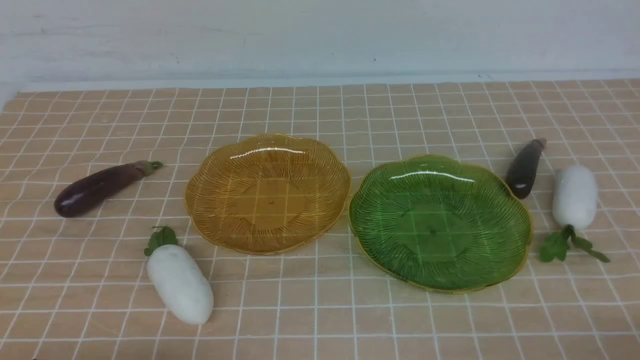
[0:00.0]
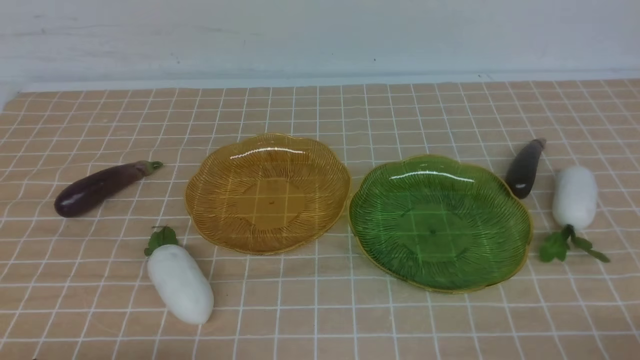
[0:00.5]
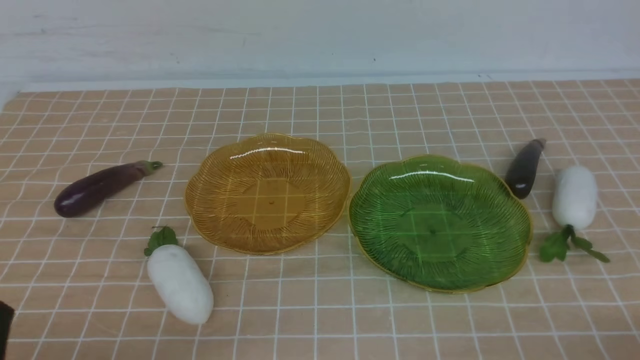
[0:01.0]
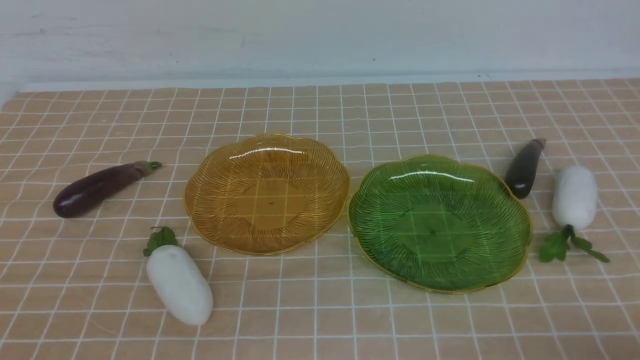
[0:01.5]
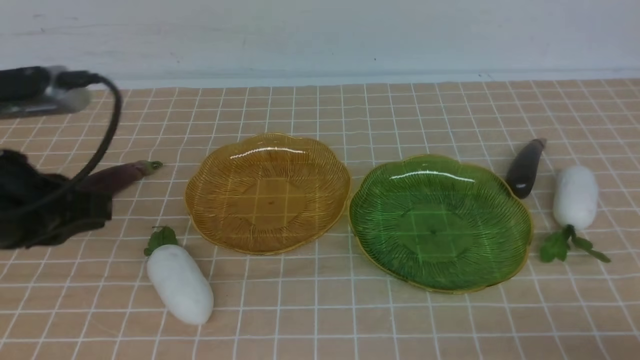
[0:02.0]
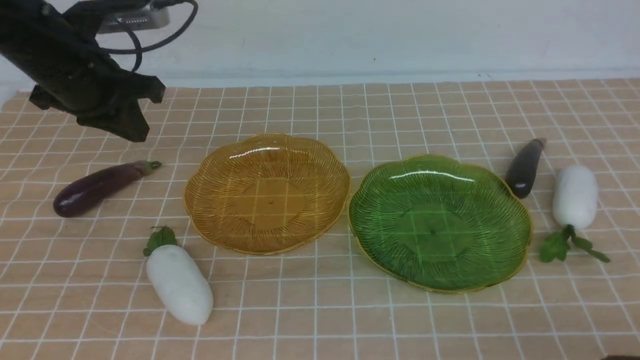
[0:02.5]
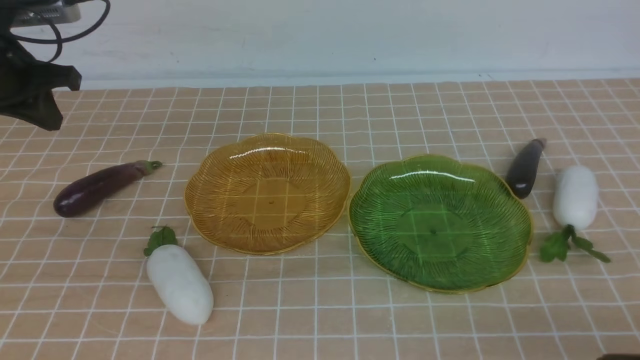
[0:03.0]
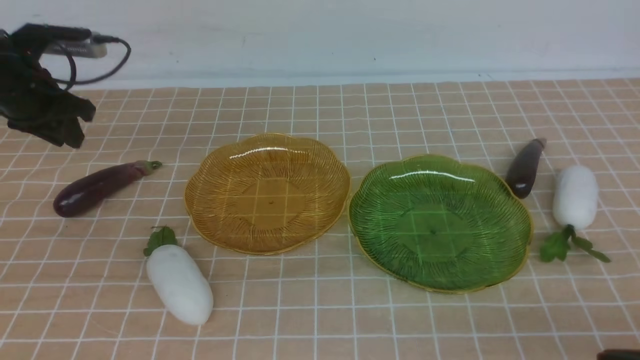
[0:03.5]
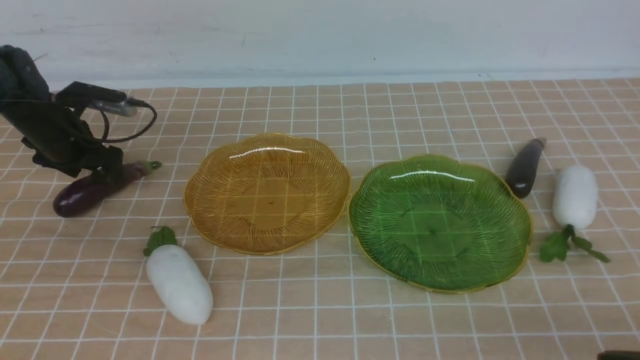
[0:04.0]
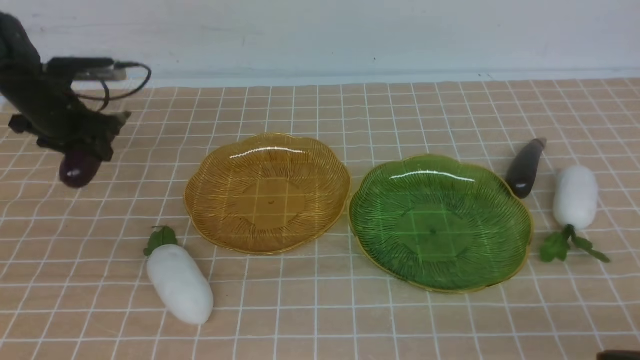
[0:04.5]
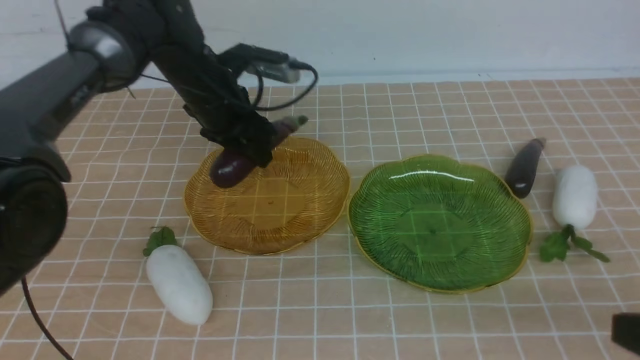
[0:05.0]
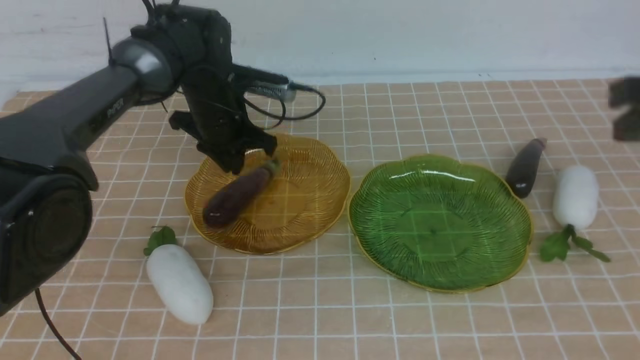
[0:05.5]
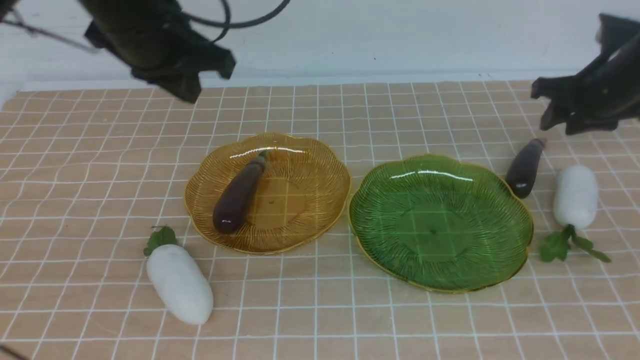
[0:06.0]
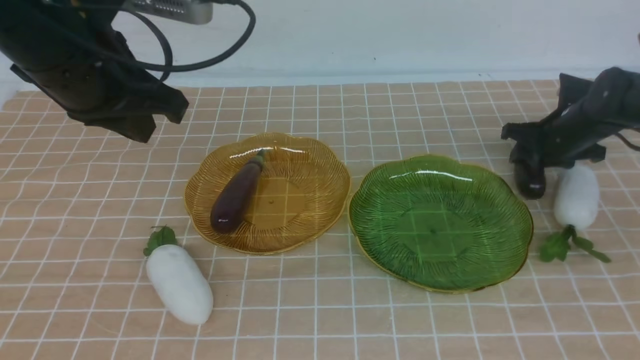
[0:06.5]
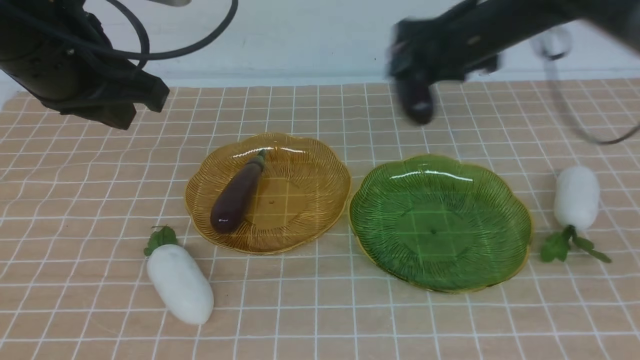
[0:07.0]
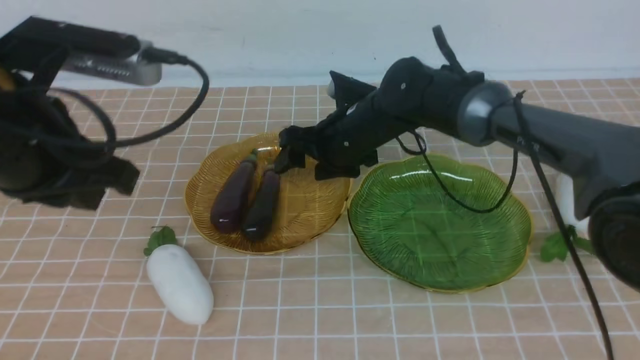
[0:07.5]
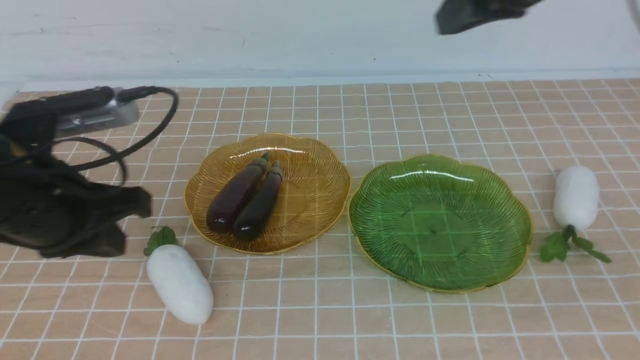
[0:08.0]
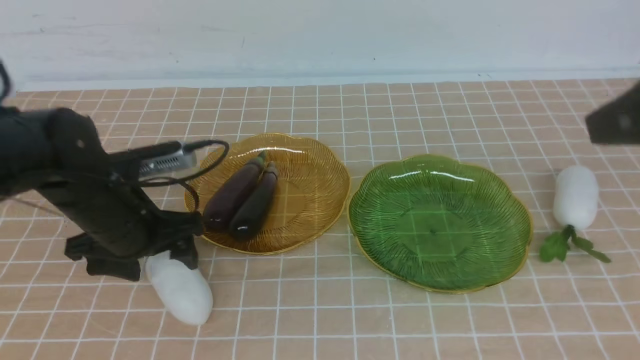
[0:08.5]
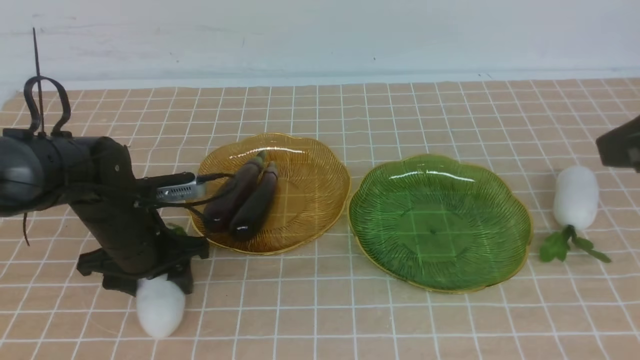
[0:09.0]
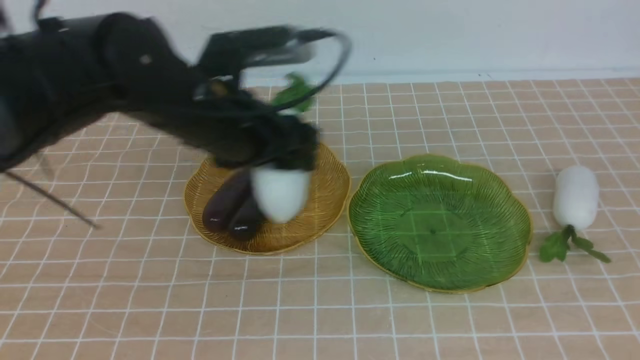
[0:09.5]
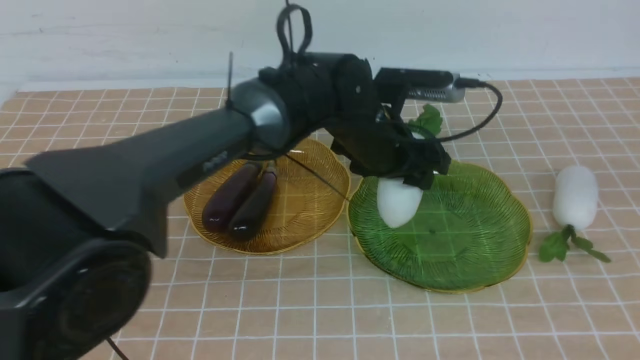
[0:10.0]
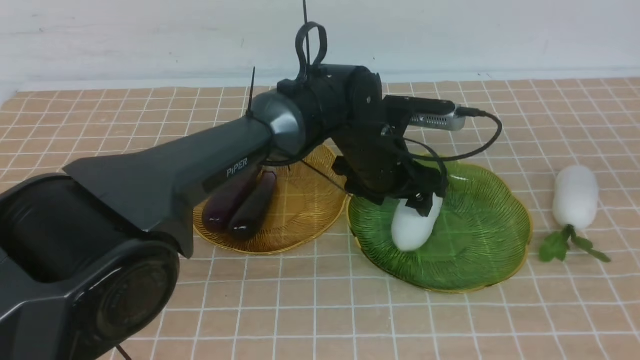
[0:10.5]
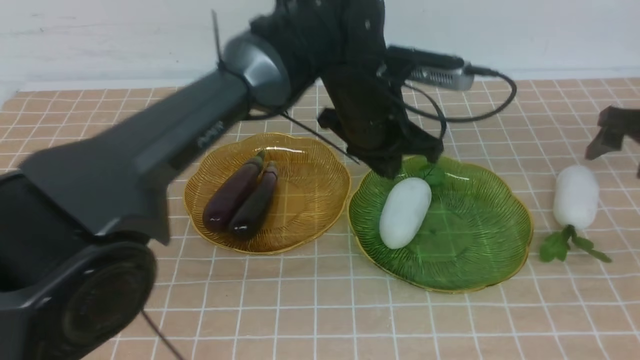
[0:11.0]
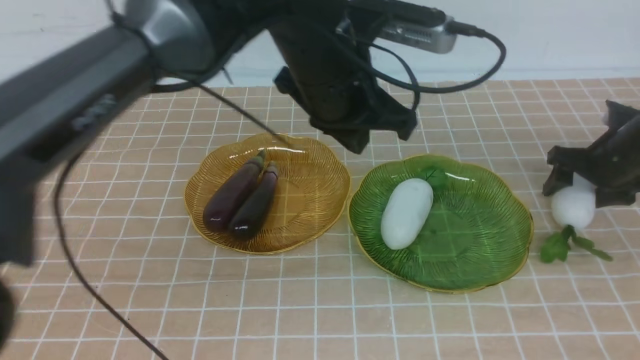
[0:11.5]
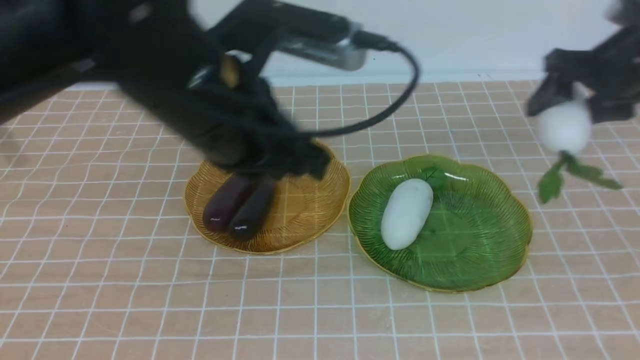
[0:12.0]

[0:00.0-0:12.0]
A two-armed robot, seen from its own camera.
Step, 0:00.0 to 0:05.5: use the left arm to grab an eggplant and put it into the left plate.
Step, 0:06.0 to 0:07.0: use the right arm to grab an eggplant and put it into the left plate.
Step, 0:07.5 to 0:10.0: use the left arm to grab a radish and put it into the right plate.
0:00.0 to 0:02.0: The left gripper is displaced forward and upward by about 35 cm.
0:02.0 to 0:04.0: The left gripper moves forward and downward, roughly 20 cm, and opens its fingers.
0:04.0 to 0:06.0: The left gripper moves backward and upward, about 25 cm, and closes up. The right gripper is displaced forward by roughly 40 cm, and opens.
0:06.0 to 0:08.0: The left gripper shifts some 25 cm downward, and opens its fingers, while the right gripper moves backward and upward, roughly 35 cm, and closes up.
0:08.0 to 0:10.0: The right gripper travels forward, downward and to the right by about 30 cm, and opens. Meanwhile the left gripper goes approximately 25 cm to the right, and closes.
0:10.0 to 0:12.0: The left gripper moves backward, to the left and upward, approximately 30 cm, and closes its fingers. Meanwhile the right gripper shifts roughly 15 cm to the left.

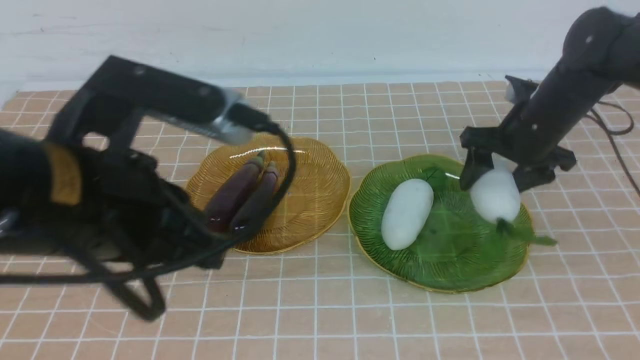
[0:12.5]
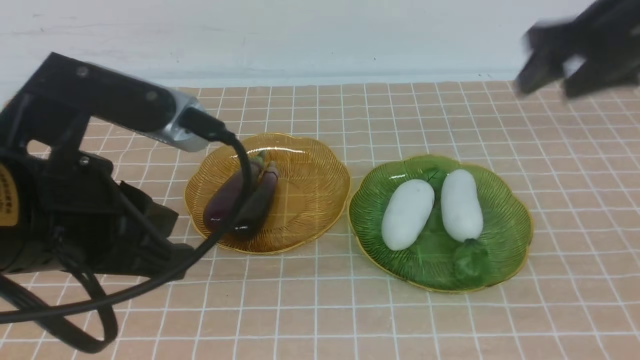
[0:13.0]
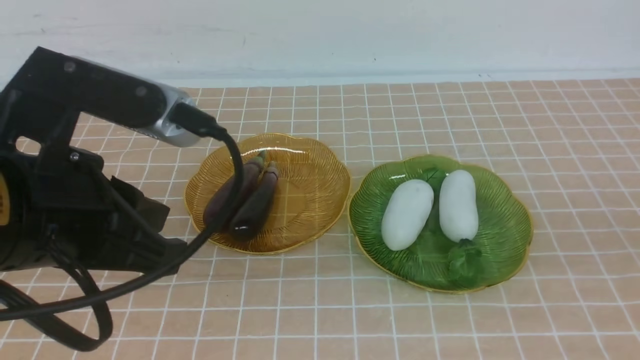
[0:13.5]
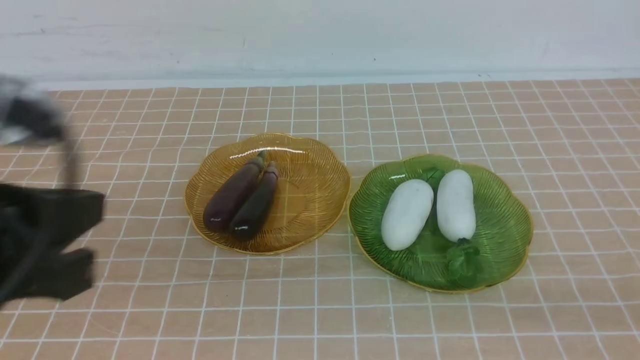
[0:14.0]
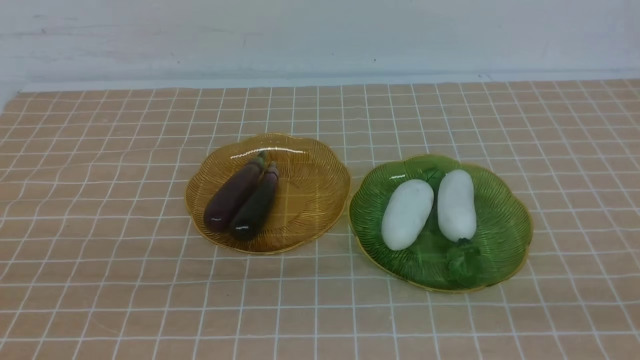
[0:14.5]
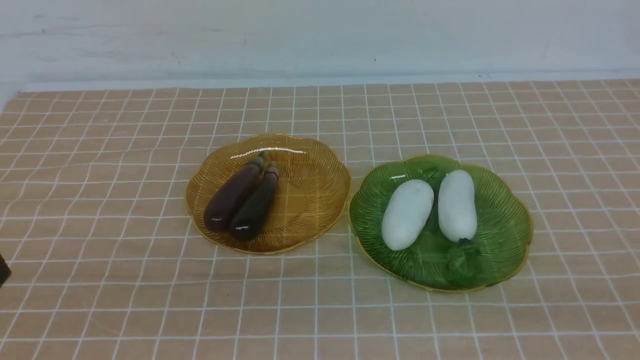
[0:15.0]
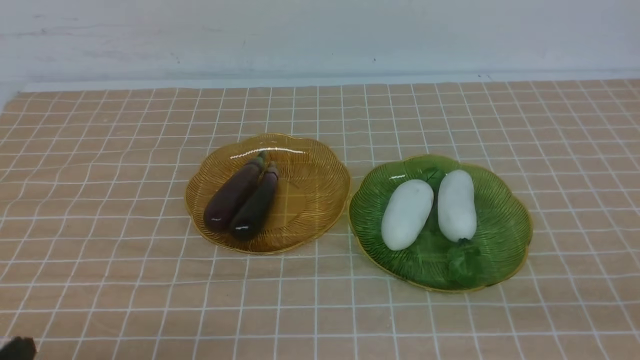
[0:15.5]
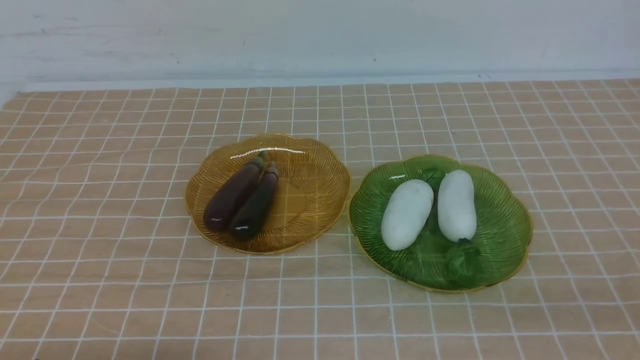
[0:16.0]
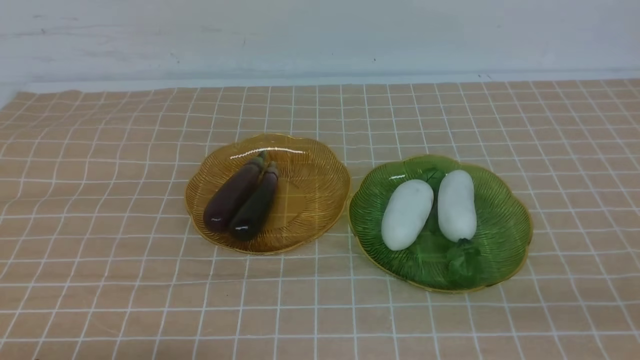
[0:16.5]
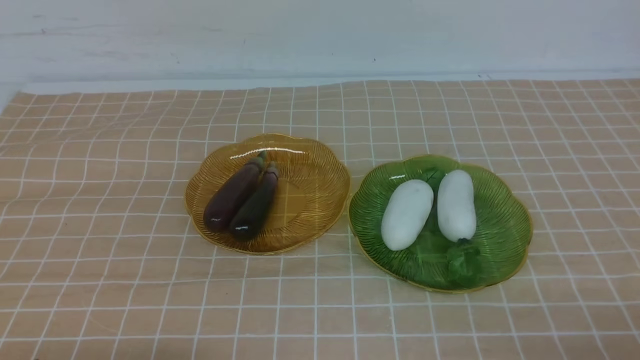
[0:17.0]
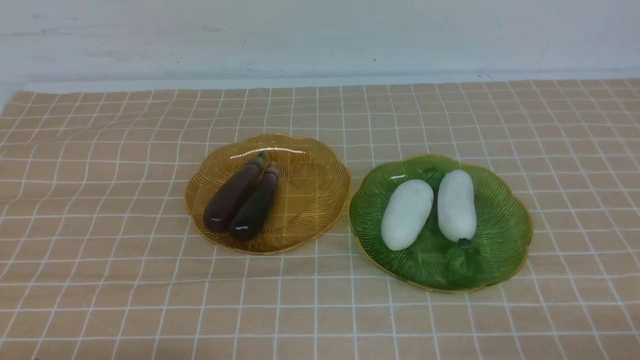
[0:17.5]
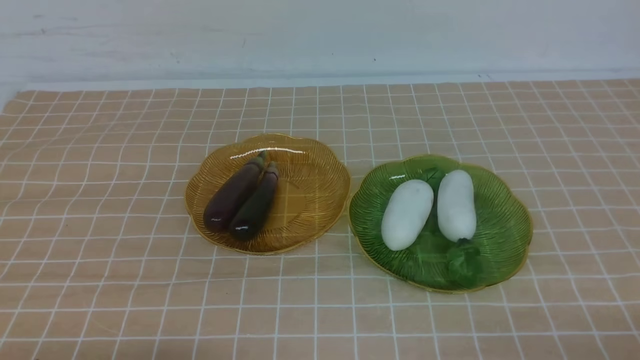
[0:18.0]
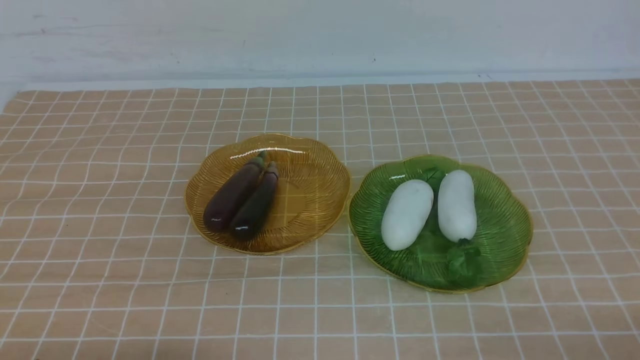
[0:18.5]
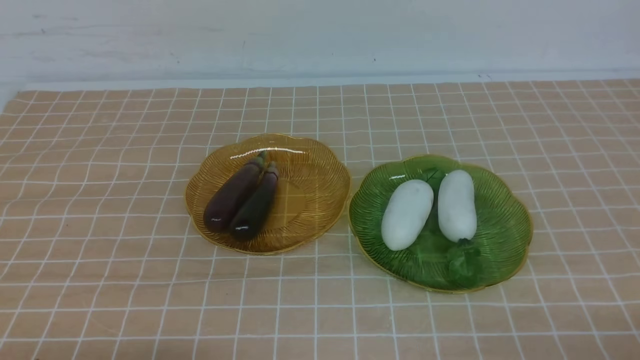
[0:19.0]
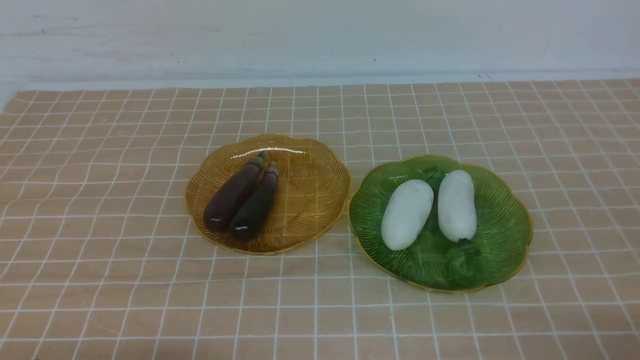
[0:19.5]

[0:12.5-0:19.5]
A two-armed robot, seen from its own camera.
0:12.5 to 0:14.5: The right gripper is displaced backward and downward by approximately 30 cm, and closes; the left gripper heads backward and to the left, covering about 15 cm.
0:17.5 to 0:19.5: The two grippers keep their place.
